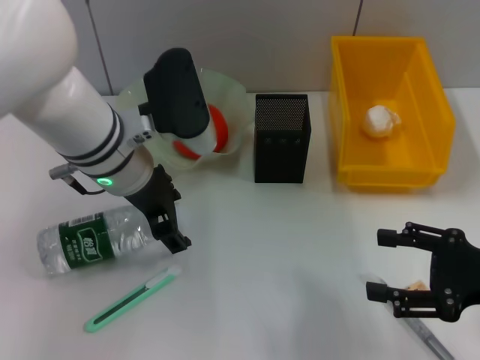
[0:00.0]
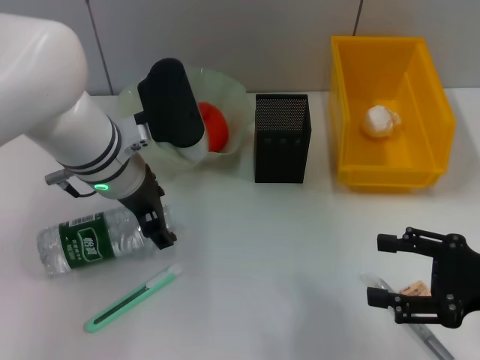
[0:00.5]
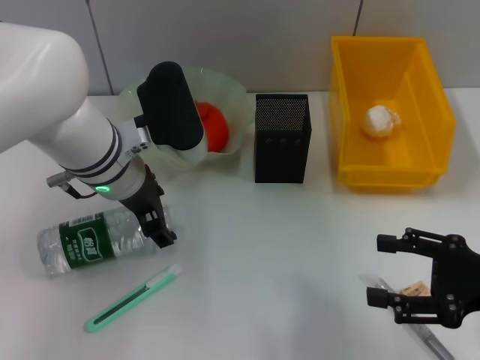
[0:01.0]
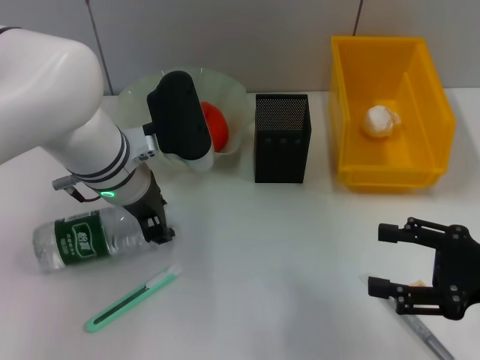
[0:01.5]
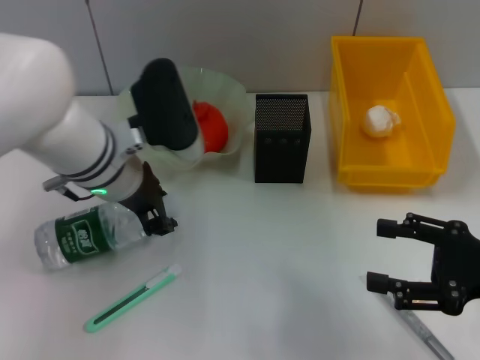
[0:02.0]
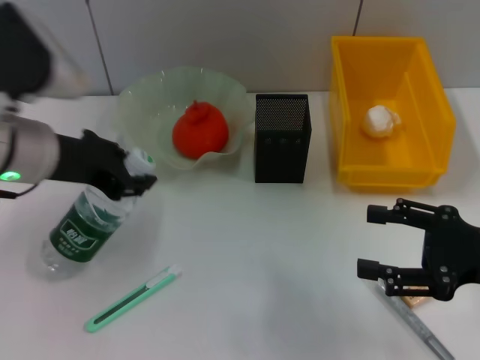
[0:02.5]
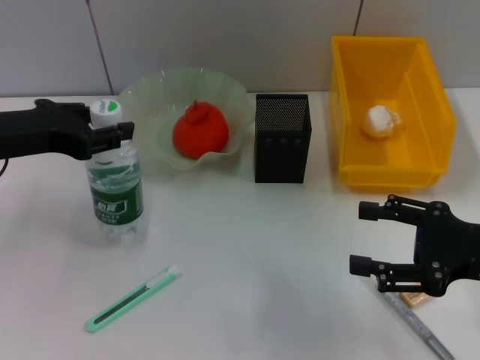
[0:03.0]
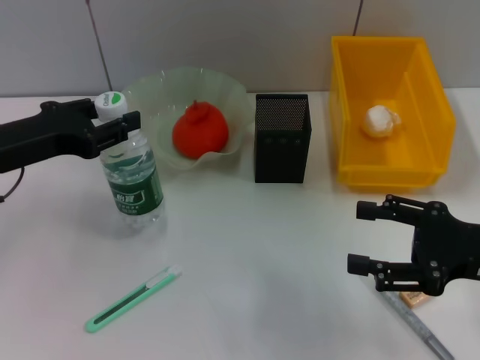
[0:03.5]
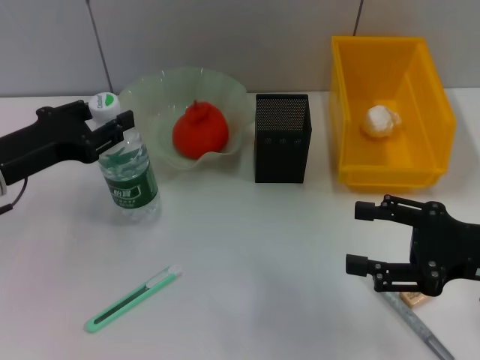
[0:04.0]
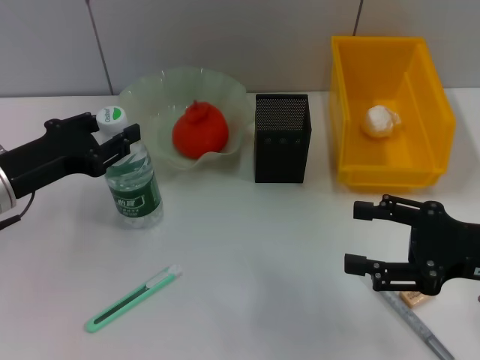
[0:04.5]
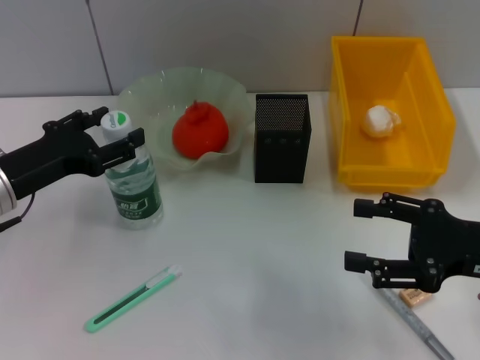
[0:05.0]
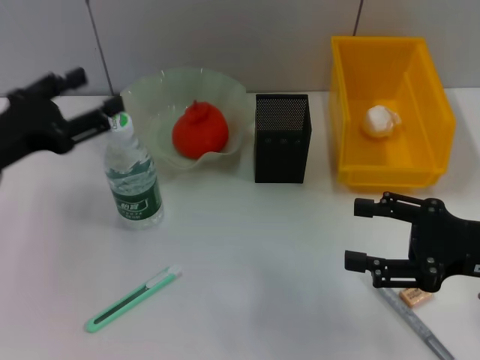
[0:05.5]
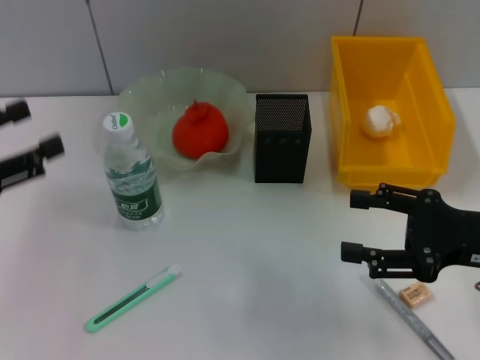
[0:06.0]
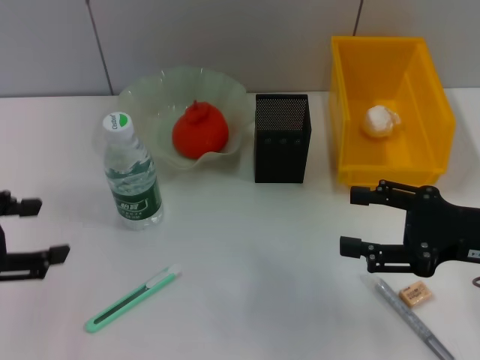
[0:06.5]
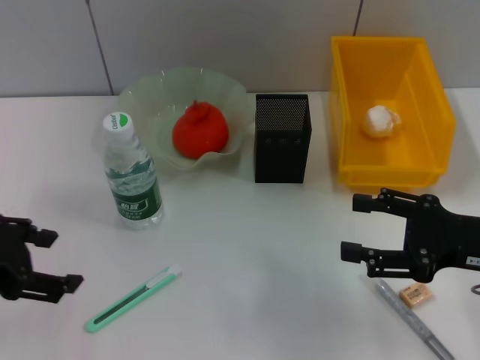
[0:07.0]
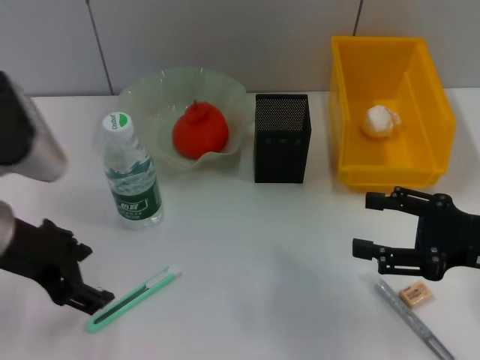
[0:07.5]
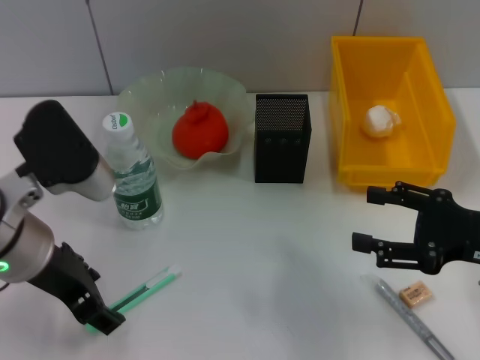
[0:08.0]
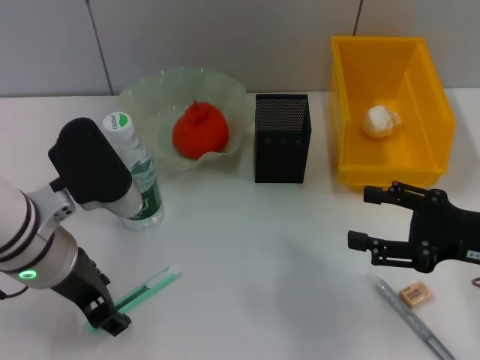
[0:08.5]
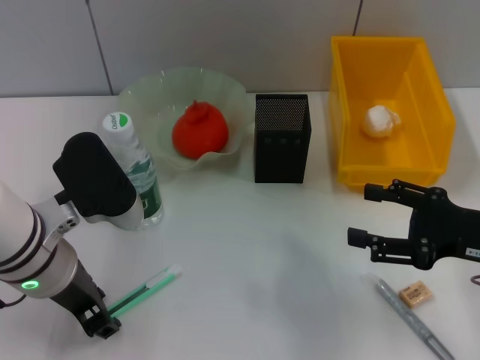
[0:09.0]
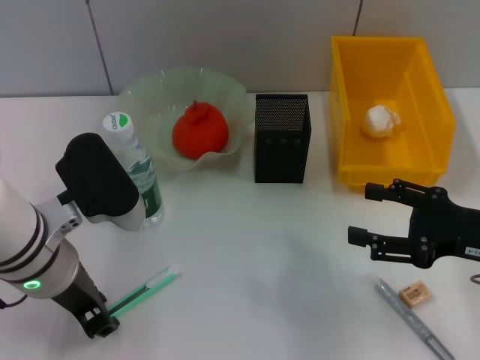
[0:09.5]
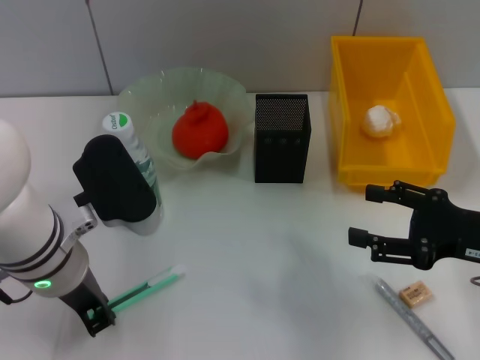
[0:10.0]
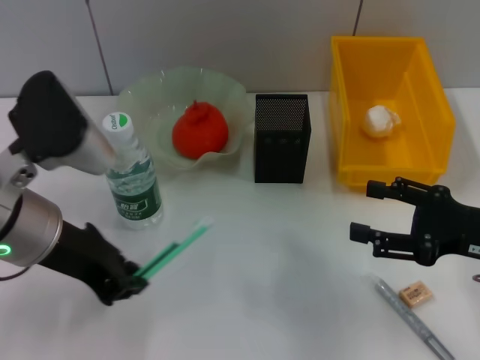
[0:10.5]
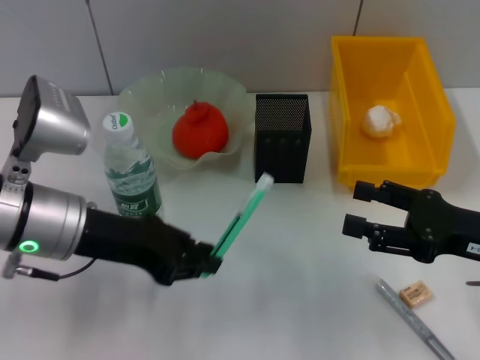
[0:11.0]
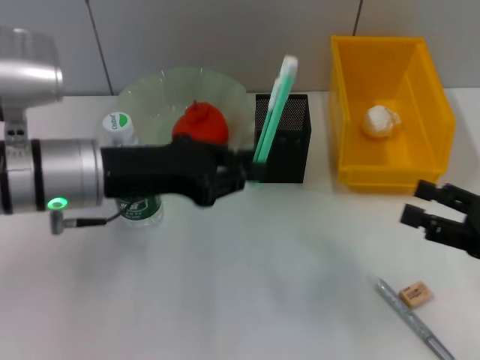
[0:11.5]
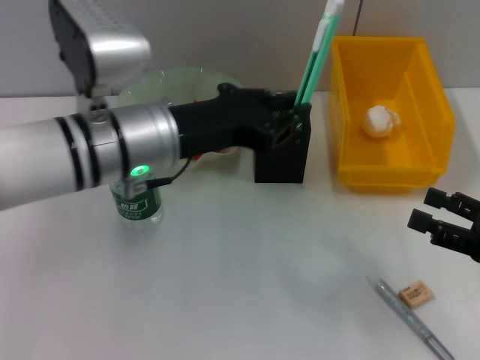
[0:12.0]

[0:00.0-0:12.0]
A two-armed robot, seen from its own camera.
Step, 0:00.0 to 0:01.5: Grab the water bottle with the left hand.
Step, 0:02.0 to 0:05.0: Place the water bottle on the table with the left hand.
Step, 0:05.5 to 0:09.5: Grab the blue utility knife with the left hand.
0:00.0 to 0:02.0: The left gripper closes.
0:02.0 to 0:04.0: The left gripper moves to the left, roughly 15 cm.
0:04.0 to 0:06.0: The left gripper moves backward and to the left, approximately 10 cm, and opens up.
0:06.0 to 0:08.0: The left gripper heads to the right, covering approximately 15 cm.
0:08.0 to 0:10.0: The left gripper closes up.
0:10.0 to 0:12.0: The right gripper shifts by approximately 5 cm. The left gripper ends up roughly 10 cm from where it was.

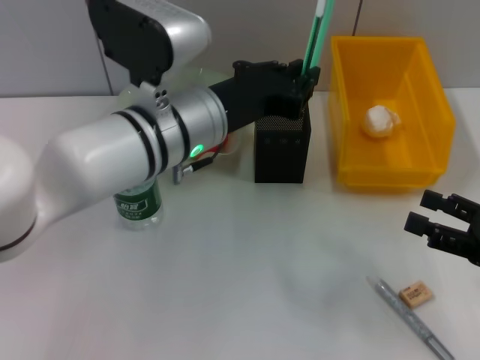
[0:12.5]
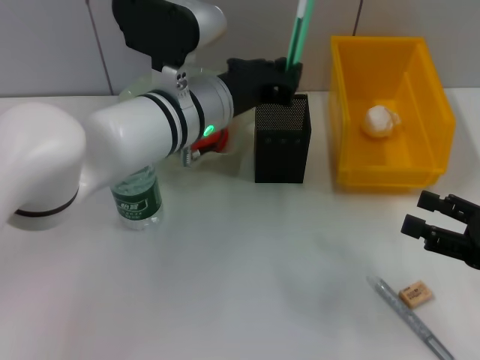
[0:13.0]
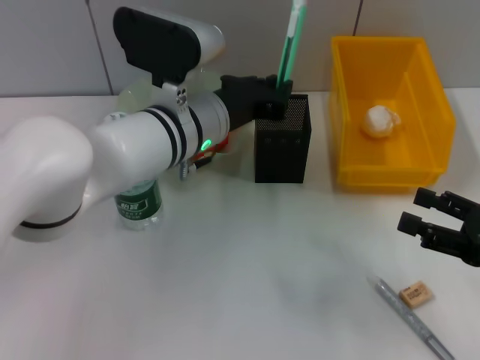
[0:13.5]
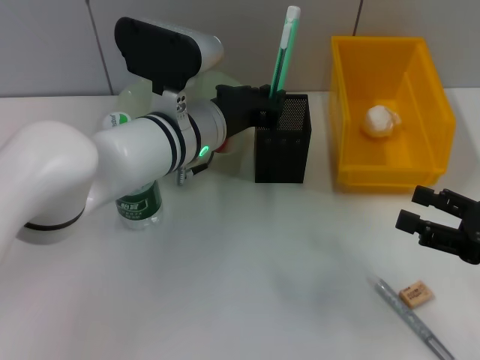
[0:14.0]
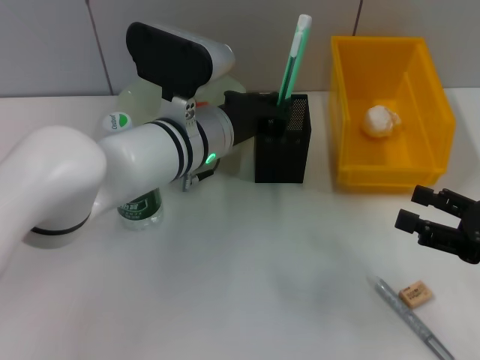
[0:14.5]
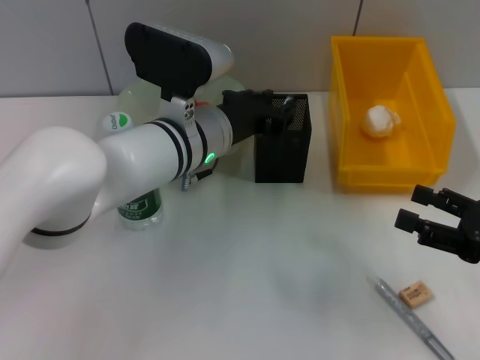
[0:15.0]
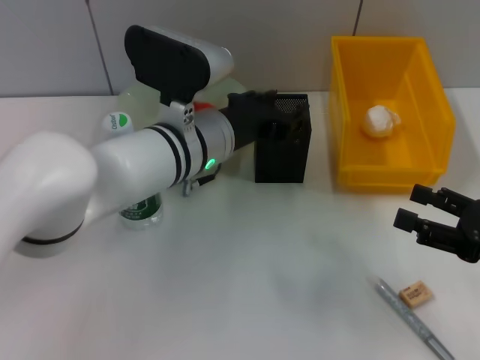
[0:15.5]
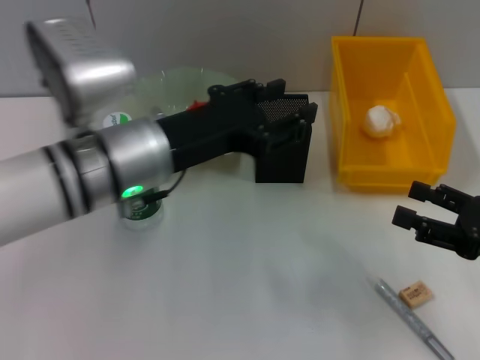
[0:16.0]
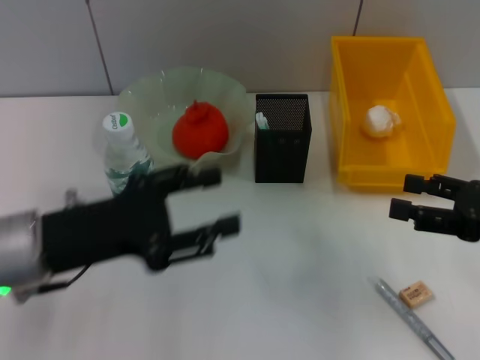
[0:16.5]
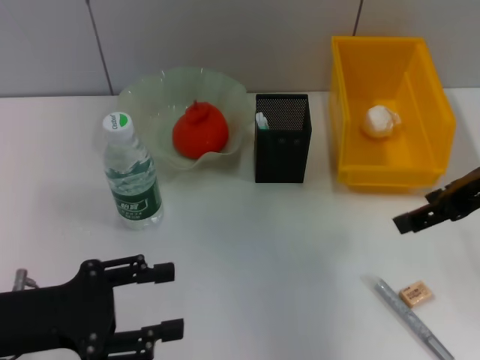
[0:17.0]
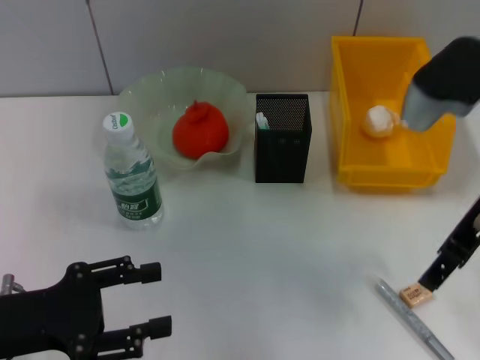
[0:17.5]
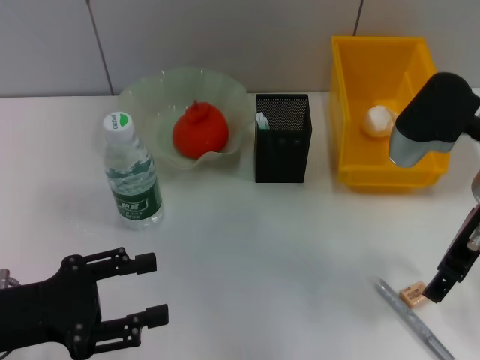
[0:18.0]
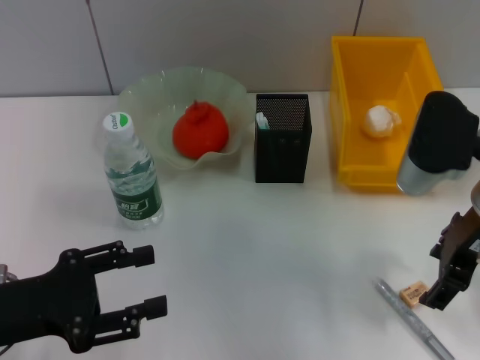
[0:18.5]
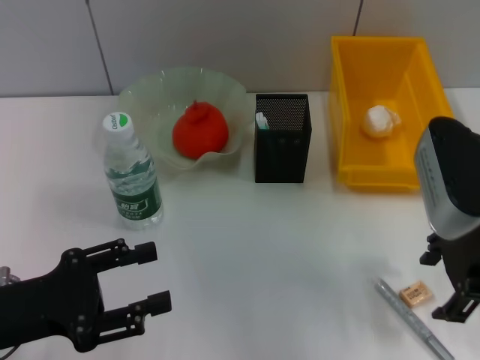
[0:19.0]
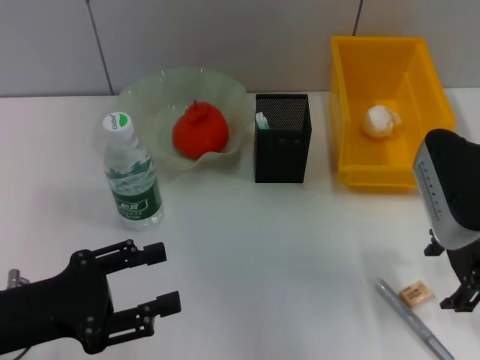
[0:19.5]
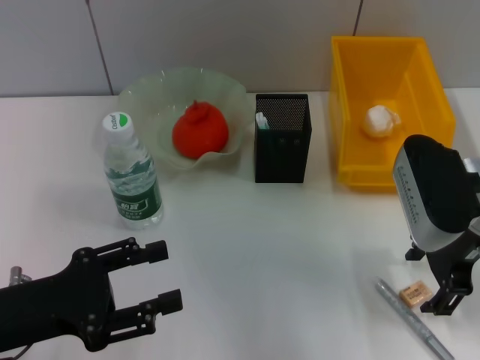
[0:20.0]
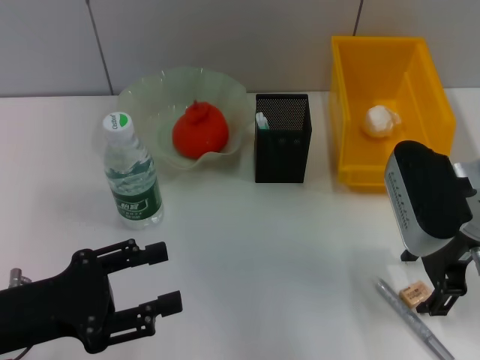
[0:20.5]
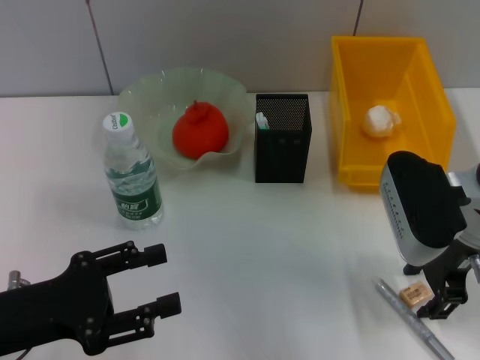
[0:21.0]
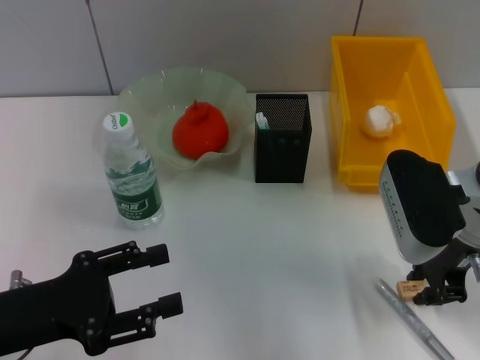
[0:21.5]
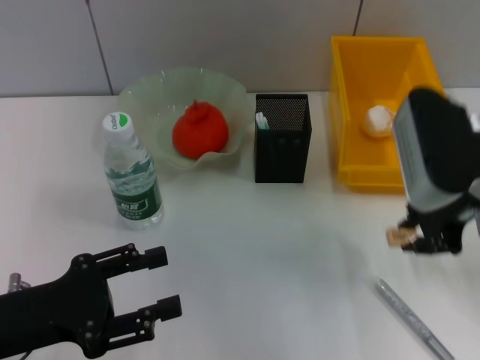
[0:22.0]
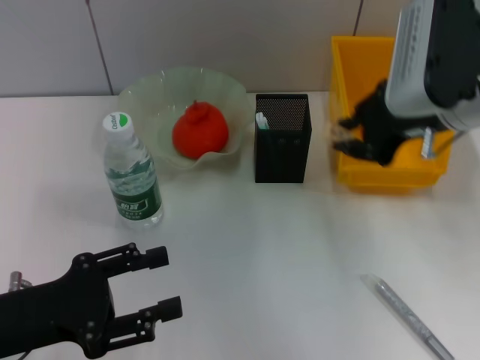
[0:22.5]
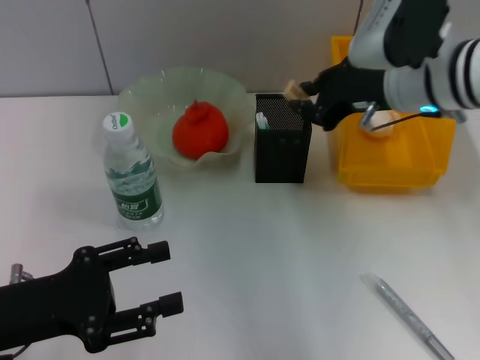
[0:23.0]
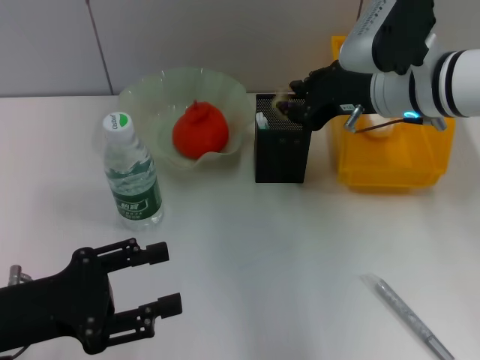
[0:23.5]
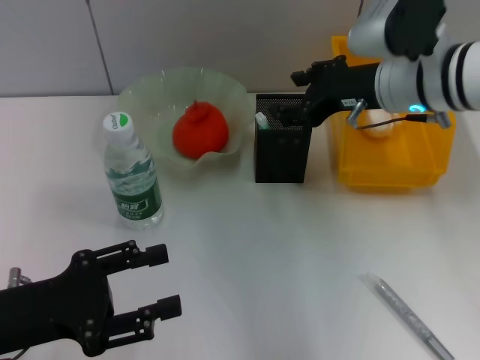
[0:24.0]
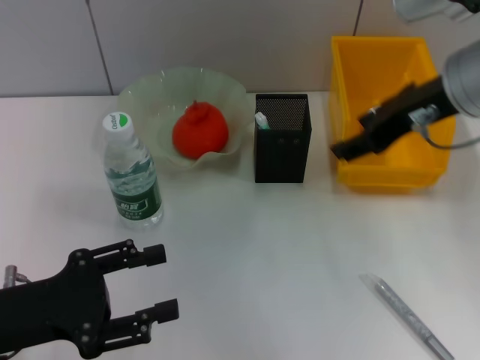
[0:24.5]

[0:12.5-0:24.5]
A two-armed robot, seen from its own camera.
Step, 0:12.5 to 0:15.5: Place the blue utility knife into the pen holder with the left hand.
Step, 0:16.0 to 0:21.0: Grab the eraser with the right hand.
Step, 0:22.0 to 0:23.5: Put the eraser into the pen holder with the right hand.
0:12.5 to 0:14.5: The left gripper changes place by some 5 cm.
0:14.5 to 0:16.5: The left gripper goes some 20 cm to the left and backward, and opens its fingers.
0:16.5 to 0:18.5: The left gripper goes approximately 5 cm to the left; the right gripper is displaced to the left, forward and upward by roughly 15 cm.
0:20.5 to 0:22.5: The right gripper is displaced upward by about 10 cm, and closes.
0:22.5 to 0:24.5: The right gripper moves about 5 cm downward and comes back, and opens its fingers.

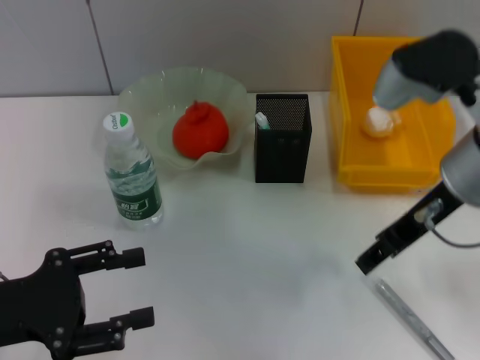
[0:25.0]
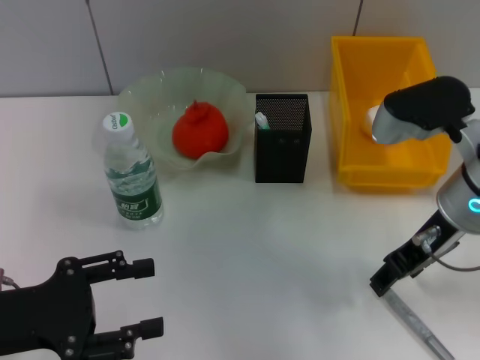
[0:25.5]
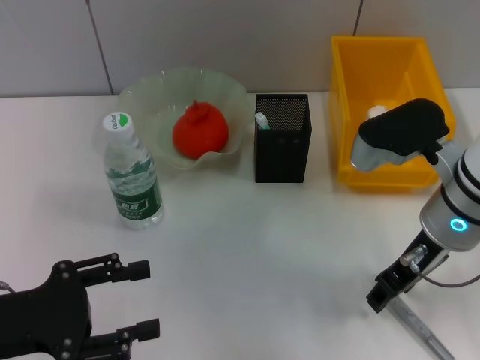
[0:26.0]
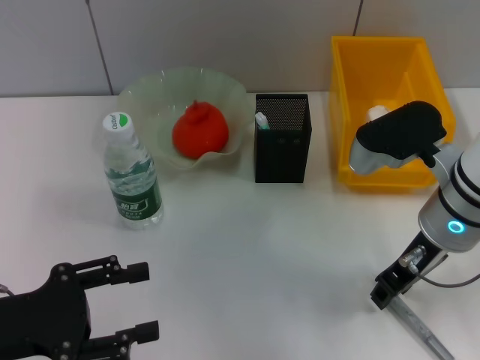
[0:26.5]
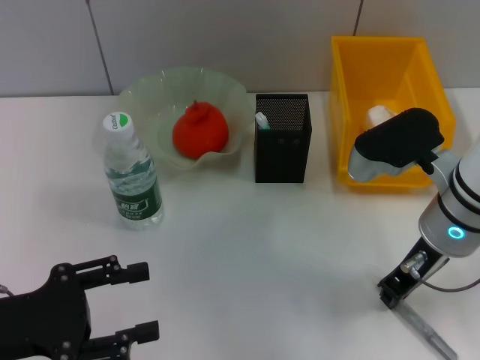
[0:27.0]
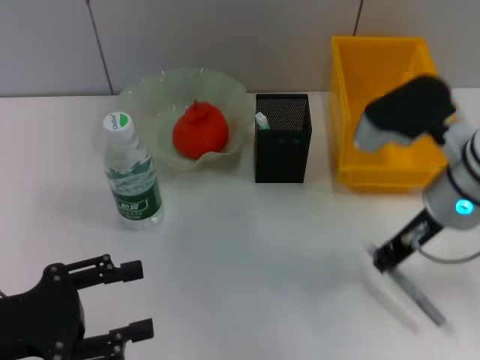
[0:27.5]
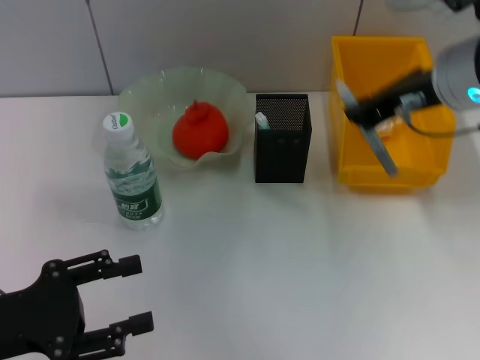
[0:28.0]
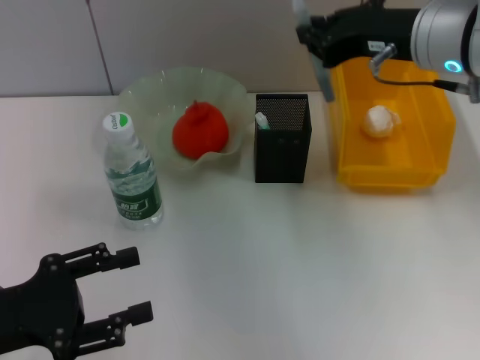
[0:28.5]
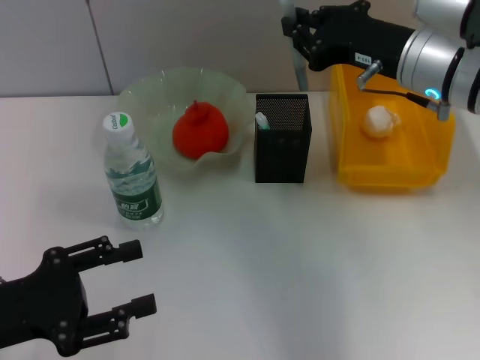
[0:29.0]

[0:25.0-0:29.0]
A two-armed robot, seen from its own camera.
Step, 0:25.0 to 0:27.0: Grab the gray glue with the right hand.
0:25.0 to 0:27.0: The right gripper travels downward by approximately 5 cm, and closes.
0:27.0 to 0:29.0: The right gripper goes roughly 10 cm forward and upward.
